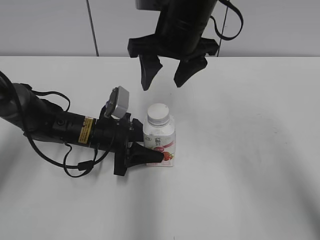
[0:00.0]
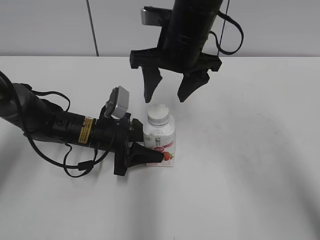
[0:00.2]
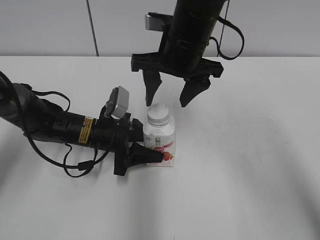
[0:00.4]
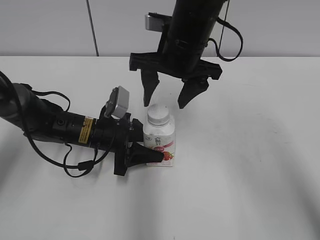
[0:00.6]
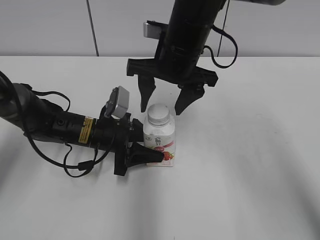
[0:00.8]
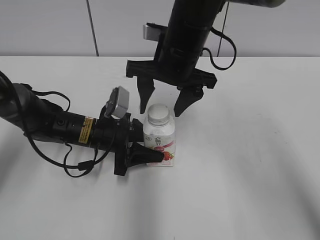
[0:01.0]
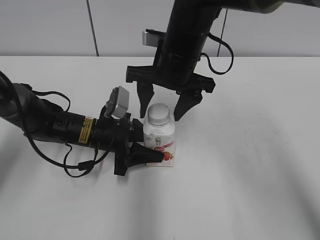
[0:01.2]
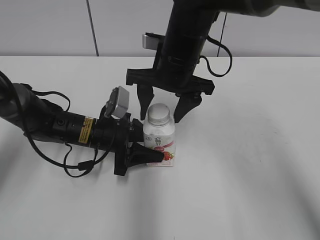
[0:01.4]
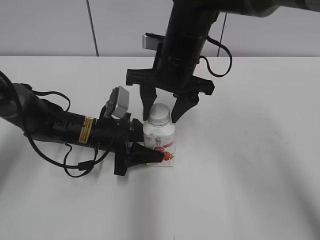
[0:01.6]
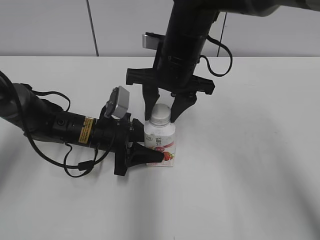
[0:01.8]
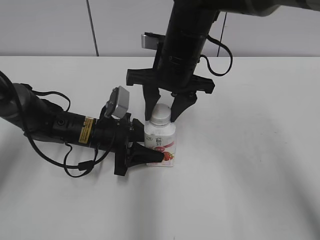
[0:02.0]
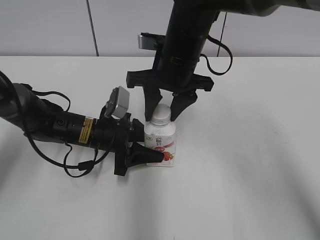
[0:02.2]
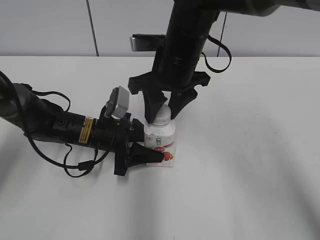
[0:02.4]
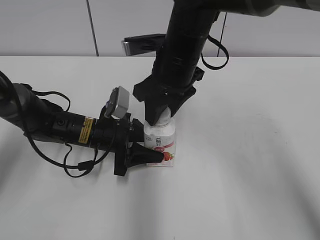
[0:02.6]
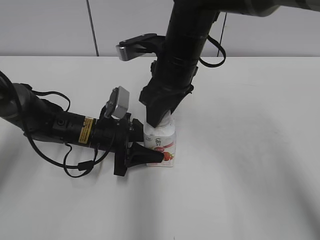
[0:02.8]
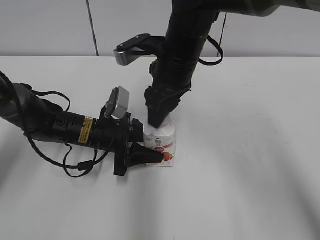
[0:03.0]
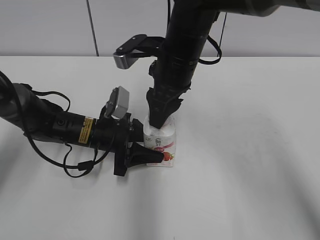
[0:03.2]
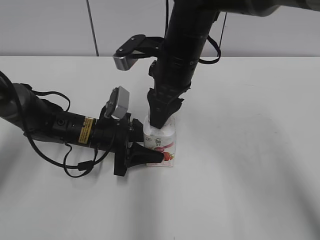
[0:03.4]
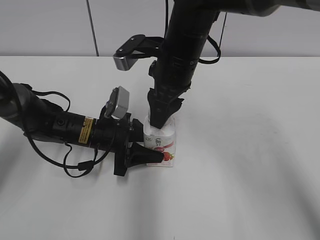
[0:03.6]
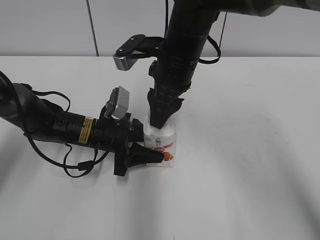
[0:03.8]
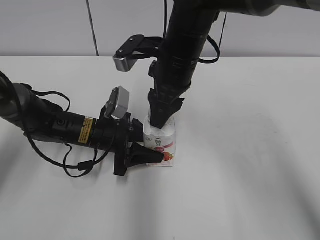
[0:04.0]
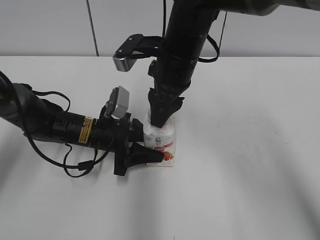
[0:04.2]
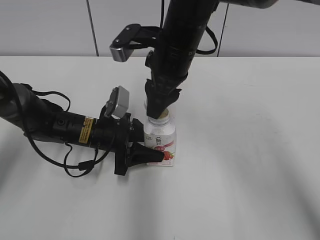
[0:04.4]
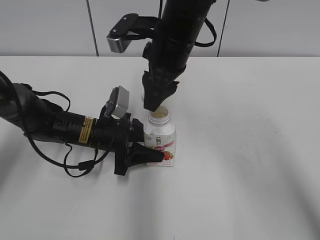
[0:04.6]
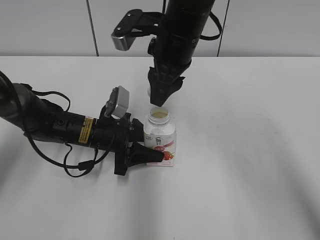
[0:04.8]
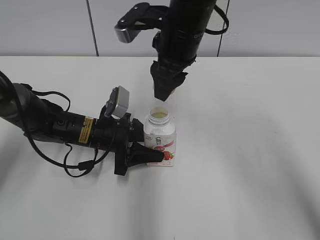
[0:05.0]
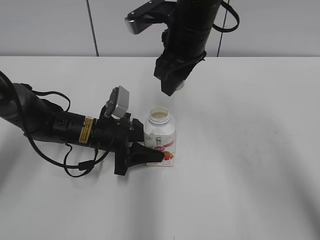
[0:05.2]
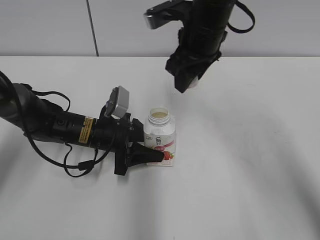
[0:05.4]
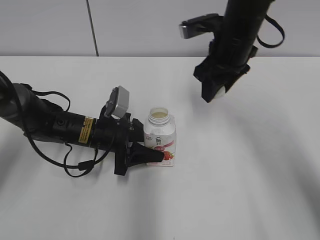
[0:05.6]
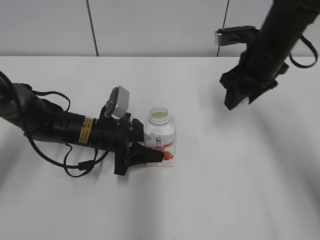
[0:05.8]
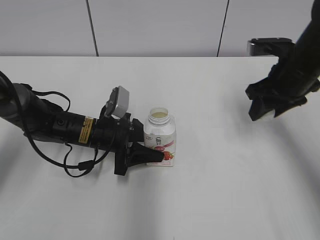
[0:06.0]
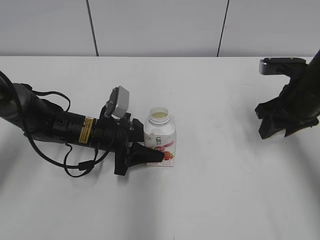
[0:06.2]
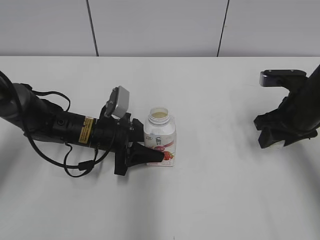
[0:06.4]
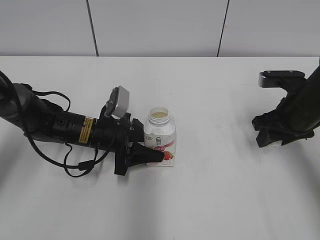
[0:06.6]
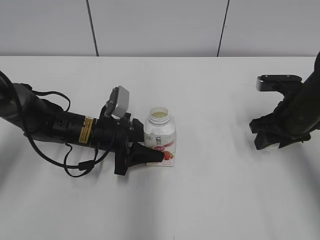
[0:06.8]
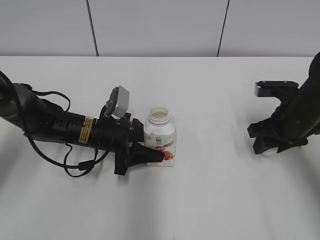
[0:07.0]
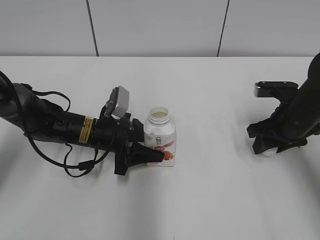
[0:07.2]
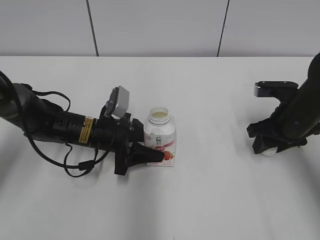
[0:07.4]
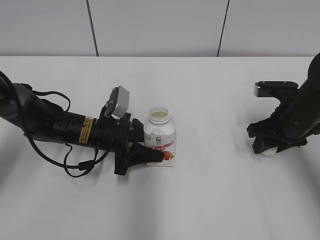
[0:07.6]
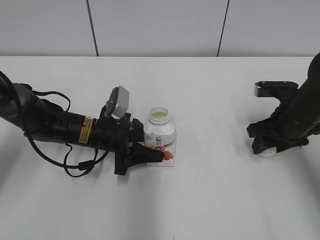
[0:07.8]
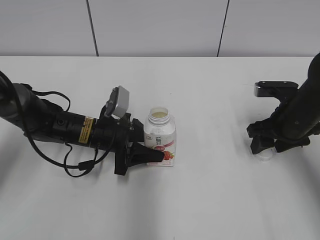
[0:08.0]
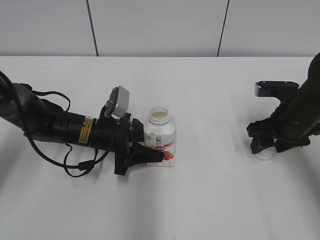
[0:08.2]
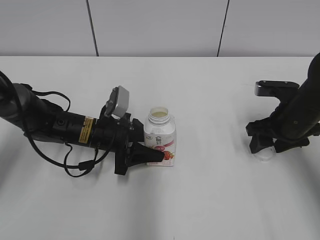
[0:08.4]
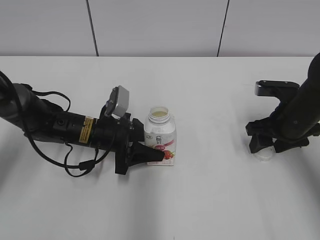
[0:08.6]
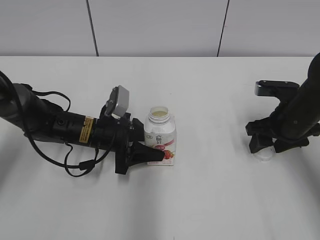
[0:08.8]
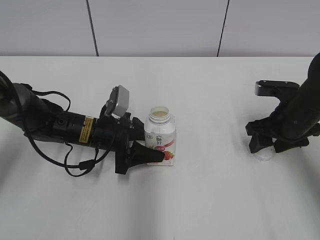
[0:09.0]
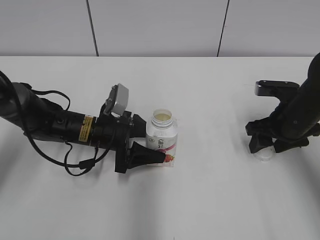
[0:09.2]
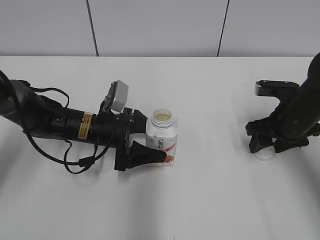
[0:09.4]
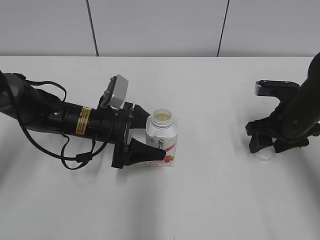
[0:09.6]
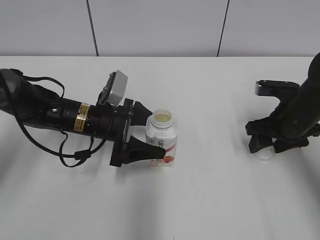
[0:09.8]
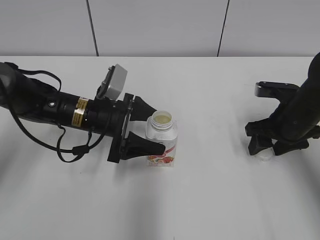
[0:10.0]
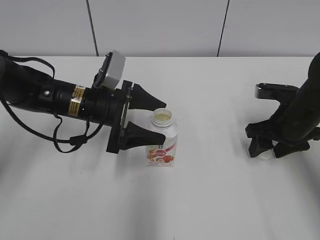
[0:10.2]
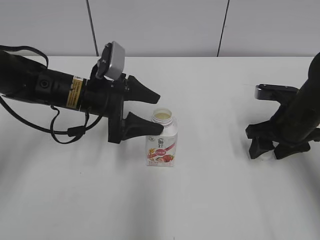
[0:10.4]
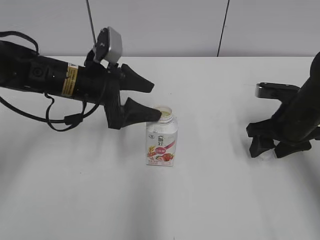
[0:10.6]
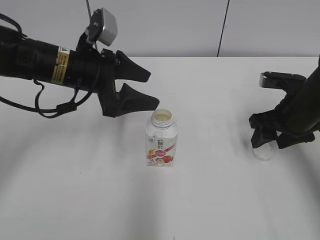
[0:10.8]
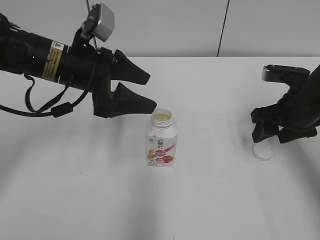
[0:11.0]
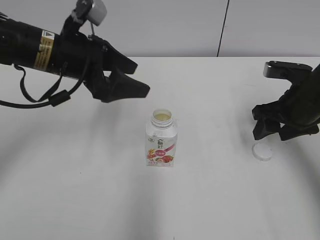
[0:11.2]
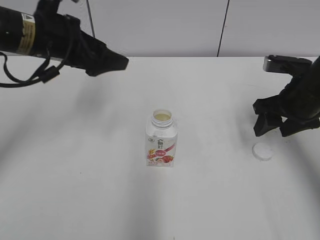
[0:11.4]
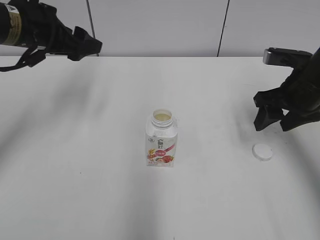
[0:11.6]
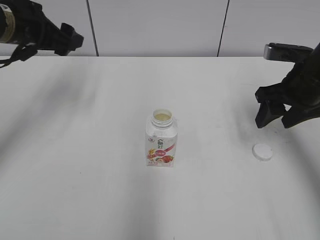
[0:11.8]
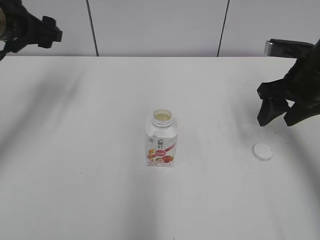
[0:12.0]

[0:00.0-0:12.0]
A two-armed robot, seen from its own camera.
Step, 0.0 to 4.2 s: Twist the bottle cap with the right hand.
Step, 4.4 to 8.0 s: Place the bottle cap on the right.
Step, 8.2 to 9.2 s: Place the Yili Changqing with the left hand.
0.0 to 1.6 s: The right gripper travels downward by approximately 5 cm, and closes up.
1.6 to 3.0 s: The right gripper closes its fingers.
3.0 to 4.4 s: The grippers move only a little.
4.4 to 6.0 s: The right gripper travels to the right by about 20 cm.
6.0 to 7.6 s: The right gripper is displaced downward by roughly 10 cm.
7.6 to 9.0 s: The right gripper opens.
9.0 to 10.4 s: The left gripper heads upward, covering approximately 10 cm, and opens up.
10.4 to 12.0 s: The right gripper goes approximately 10 cm upward. The left gripper heads to the left and upward, covering roughly 15 cm.

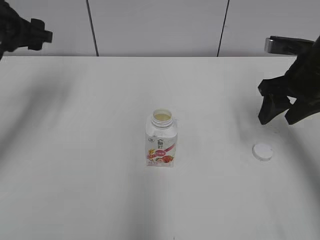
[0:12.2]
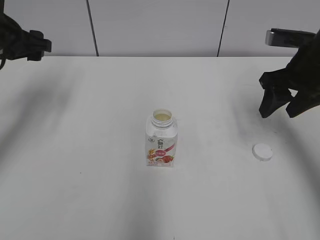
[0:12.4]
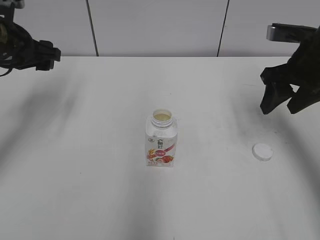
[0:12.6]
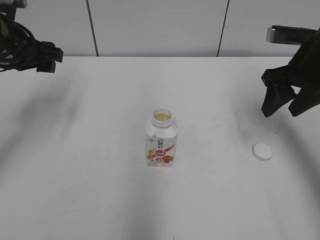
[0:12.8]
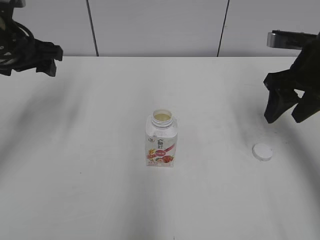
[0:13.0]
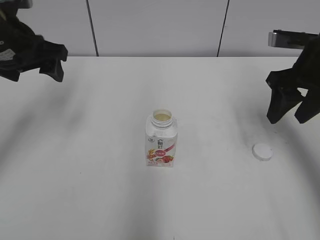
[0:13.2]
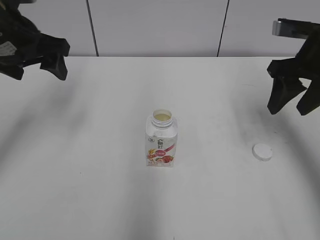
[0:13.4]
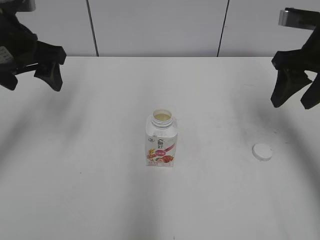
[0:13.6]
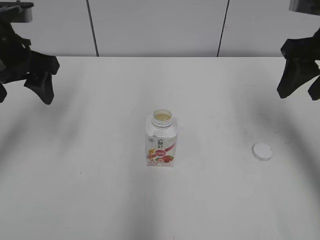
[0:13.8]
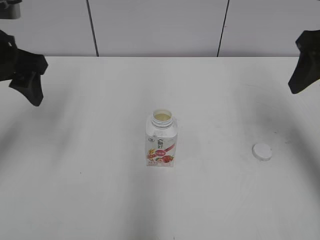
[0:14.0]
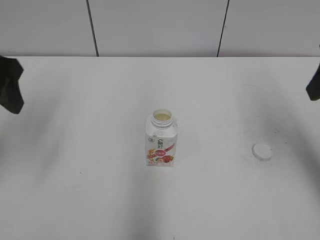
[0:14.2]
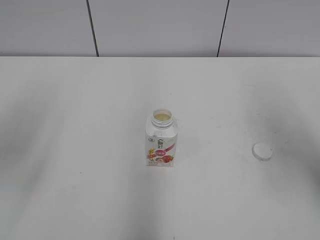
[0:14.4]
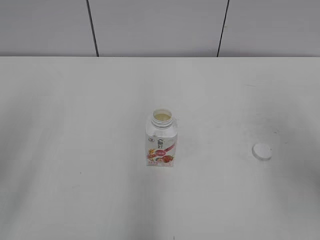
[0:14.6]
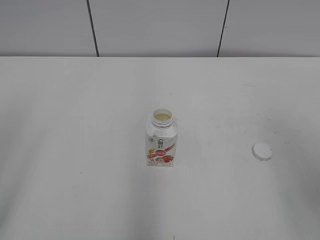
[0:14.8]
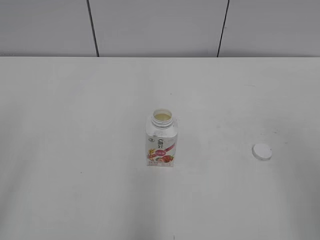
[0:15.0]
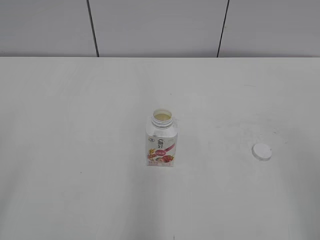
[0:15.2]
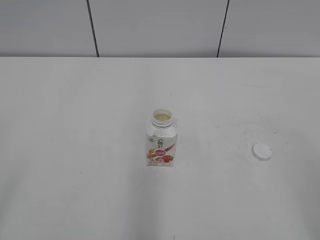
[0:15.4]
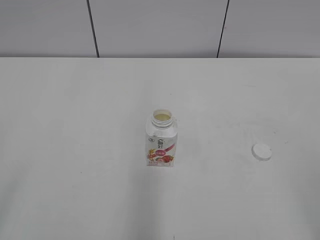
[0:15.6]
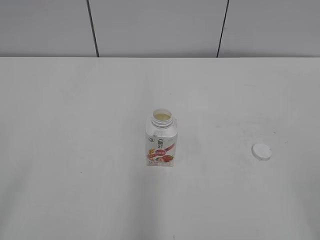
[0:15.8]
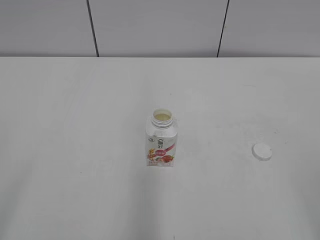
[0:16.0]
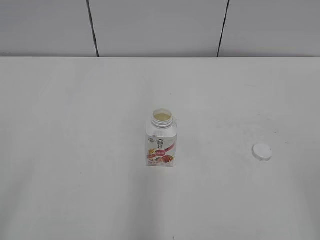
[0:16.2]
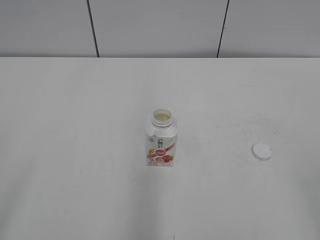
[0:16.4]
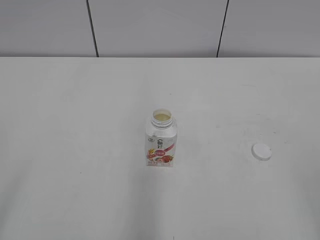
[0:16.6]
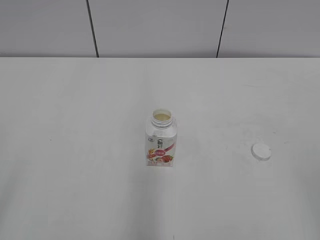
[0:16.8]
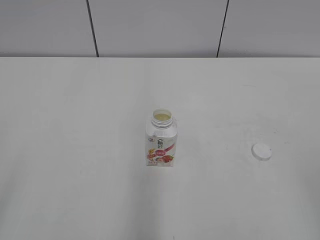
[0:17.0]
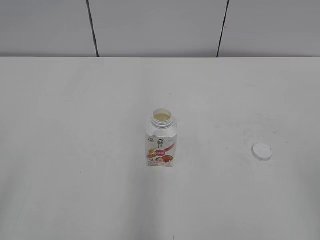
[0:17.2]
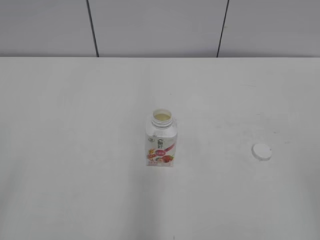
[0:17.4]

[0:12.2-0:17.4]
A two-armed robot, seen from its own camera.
12.2 to 14.0 s: The left gripper moves backward, about 10 cm. Meanwhile the right gripper travels upward by roughly 10 cm.
14.0 to 15.6 s: Both grippers move backward, roughly 30 cm.

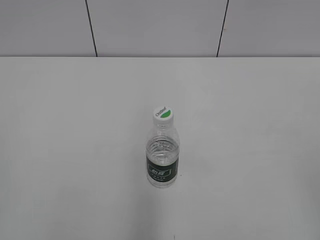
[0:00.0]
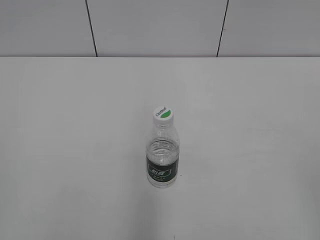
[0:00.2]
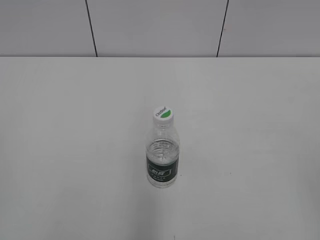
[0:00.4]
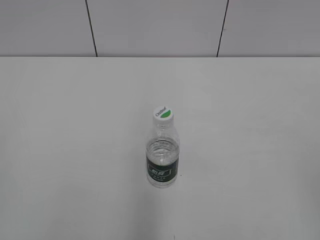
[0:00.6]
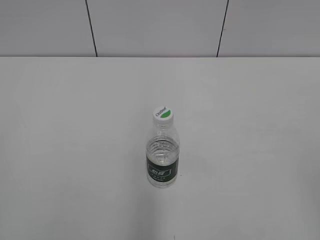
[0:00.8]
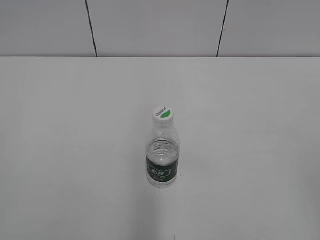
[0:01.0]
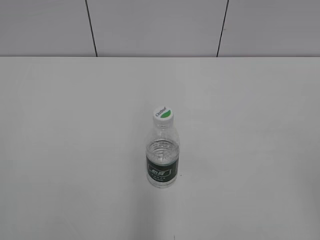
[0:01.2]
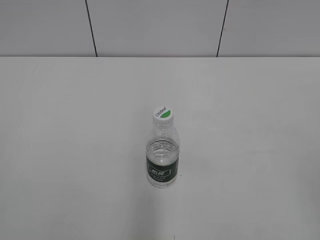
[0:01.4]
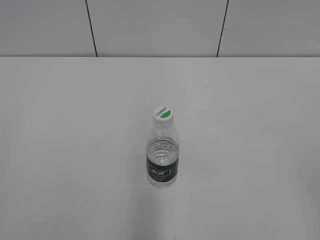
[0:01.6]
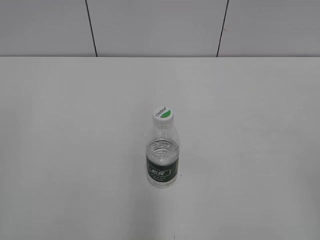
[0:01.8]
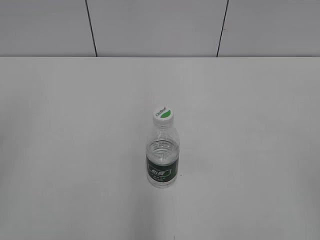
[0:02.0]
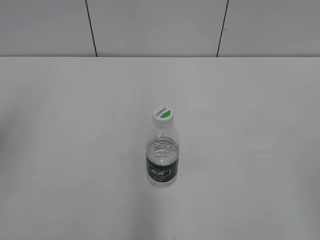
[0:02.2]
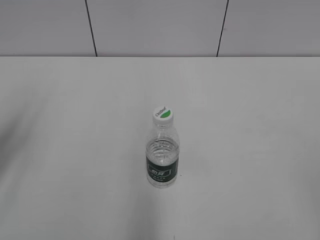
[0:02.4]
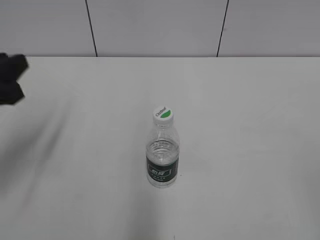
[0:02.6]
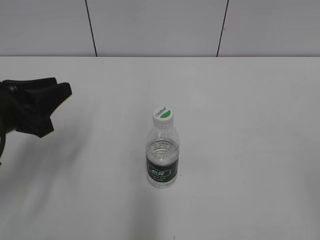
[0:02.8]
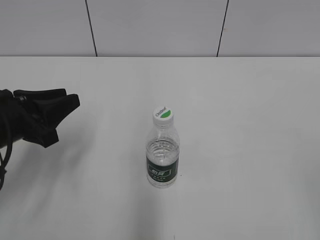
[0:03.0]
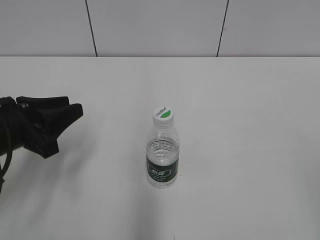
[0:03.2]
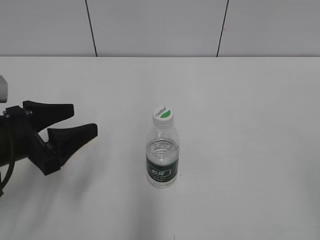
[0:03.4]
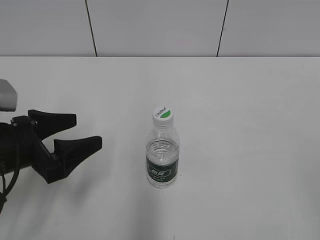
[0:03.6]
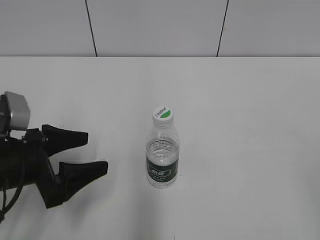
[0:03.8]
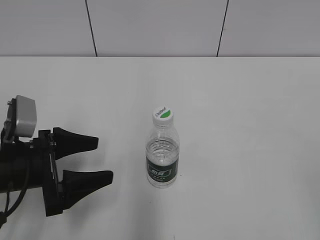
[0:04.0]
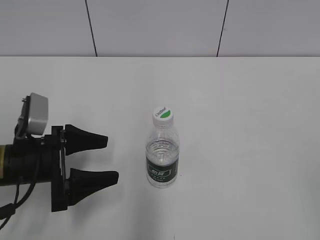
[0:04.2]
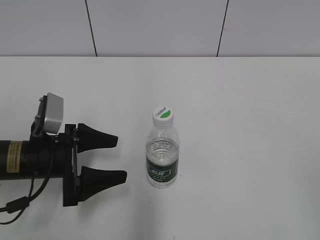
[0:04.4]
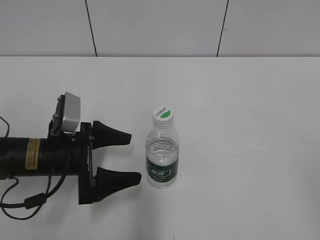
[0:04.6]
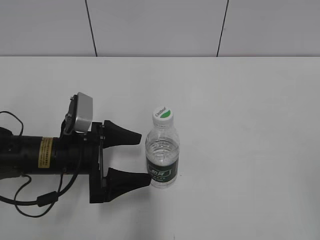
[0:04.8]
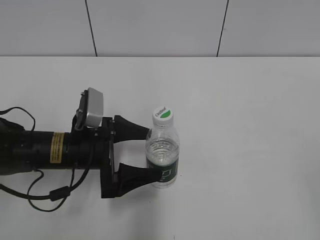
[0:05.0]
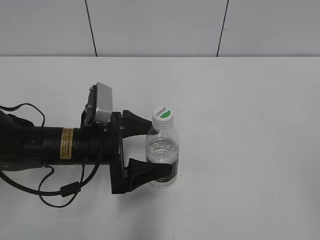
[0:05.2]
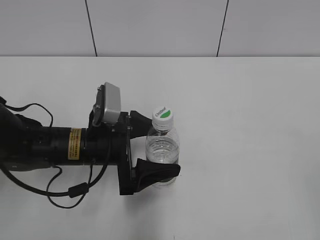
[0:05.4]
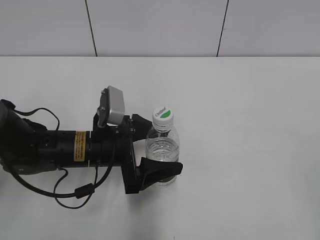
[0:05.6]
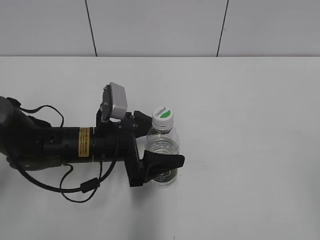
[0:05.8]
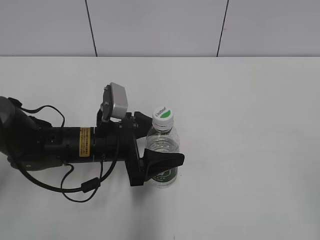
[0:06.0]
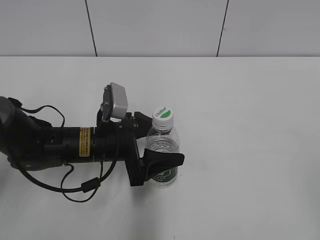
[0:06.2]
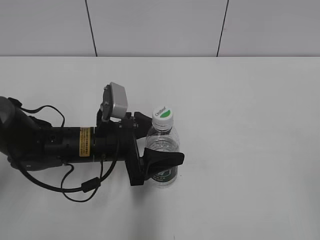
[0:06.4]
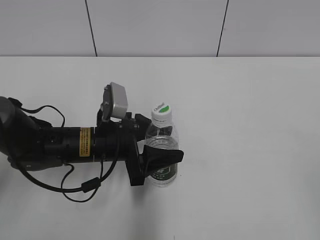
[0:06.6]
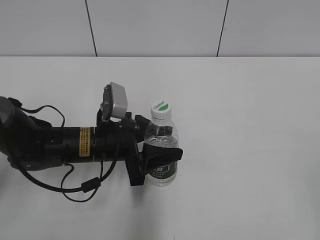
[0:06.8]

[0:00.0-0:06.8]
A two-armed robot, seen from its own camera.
Step, 0.0 to 6.4 s: Grasp the bottle and move it to the center of the table with the left gripper.
1.4 to 2.8 s: The left gripper goes about 25 cm forward and downward.
2.8 to 4.0 s: The left gripper moves downward, approximately 5 cm, and opens its fingers.
4.0 to 5.4 s: The left gripper moves to the right and forward, roughly 10 cm.
5.4 to 6.8 s: The left gripper closes its fingers.
